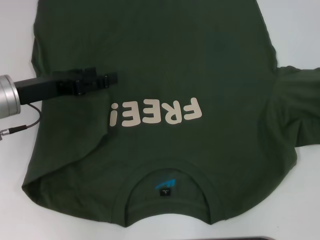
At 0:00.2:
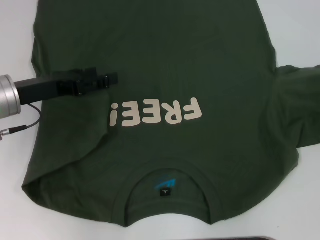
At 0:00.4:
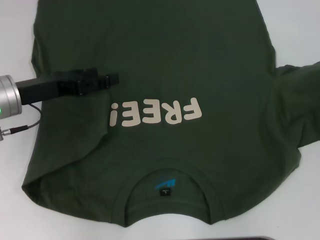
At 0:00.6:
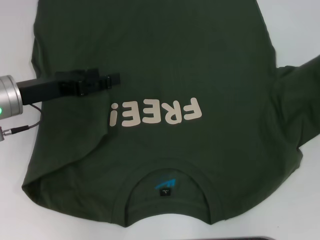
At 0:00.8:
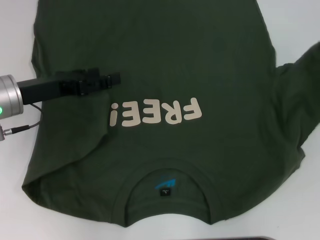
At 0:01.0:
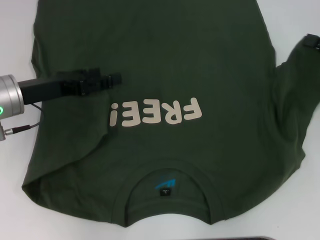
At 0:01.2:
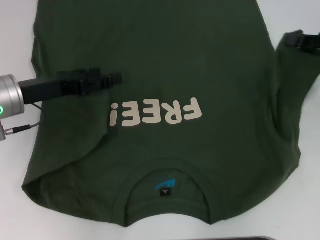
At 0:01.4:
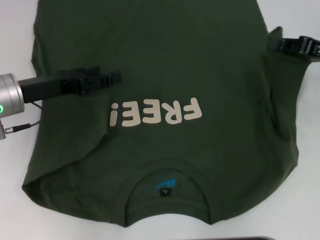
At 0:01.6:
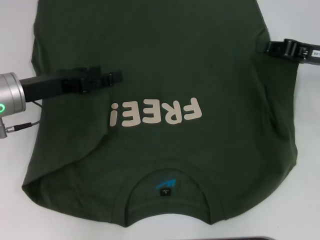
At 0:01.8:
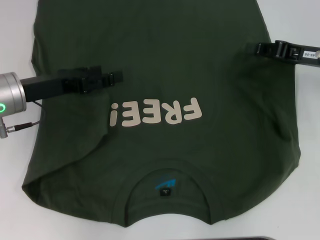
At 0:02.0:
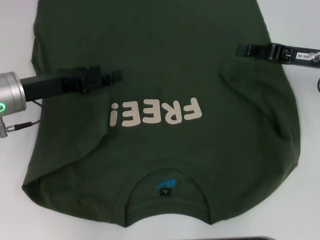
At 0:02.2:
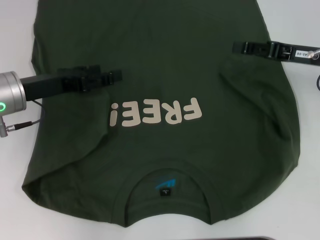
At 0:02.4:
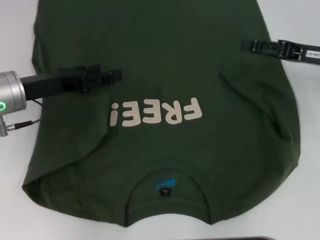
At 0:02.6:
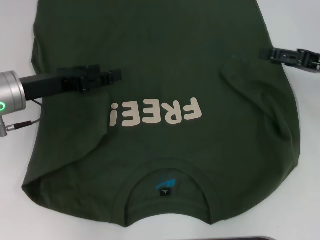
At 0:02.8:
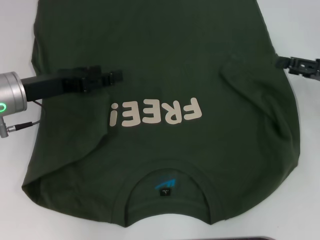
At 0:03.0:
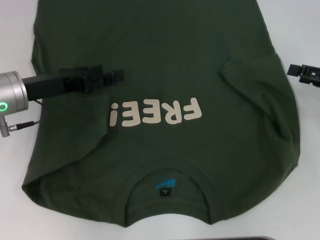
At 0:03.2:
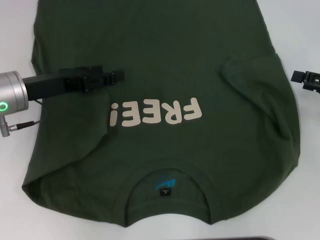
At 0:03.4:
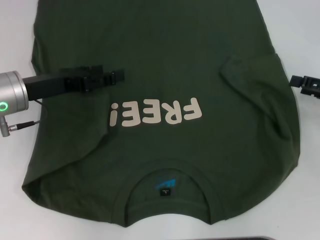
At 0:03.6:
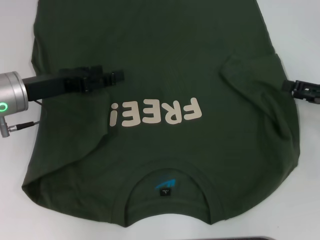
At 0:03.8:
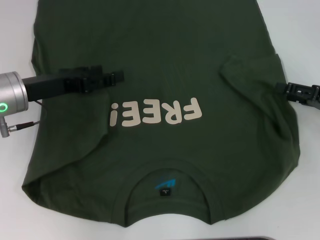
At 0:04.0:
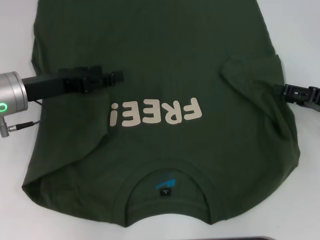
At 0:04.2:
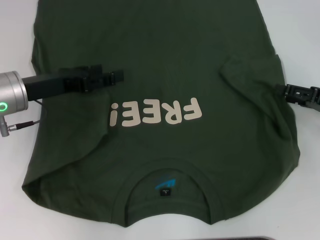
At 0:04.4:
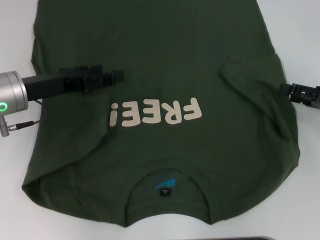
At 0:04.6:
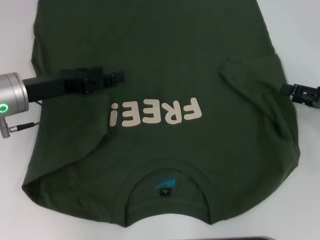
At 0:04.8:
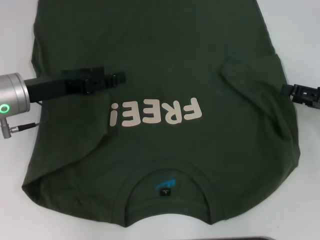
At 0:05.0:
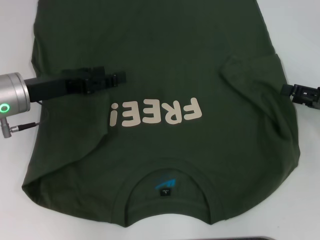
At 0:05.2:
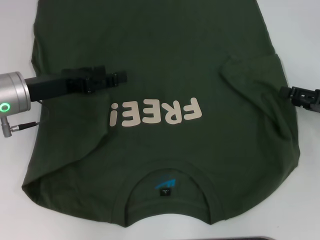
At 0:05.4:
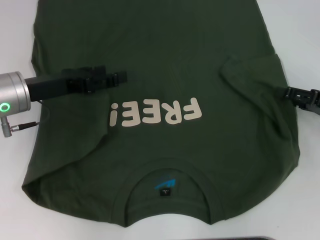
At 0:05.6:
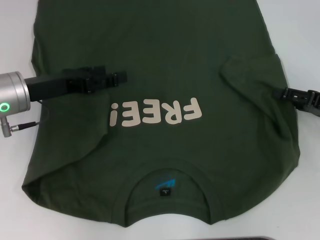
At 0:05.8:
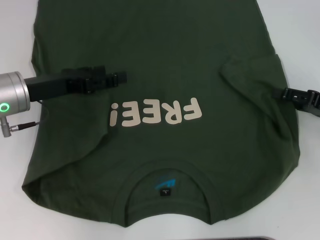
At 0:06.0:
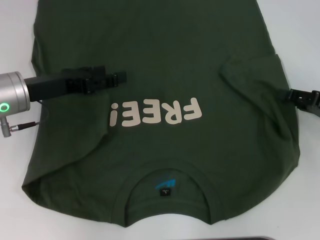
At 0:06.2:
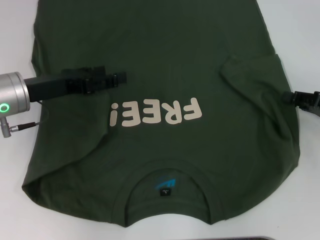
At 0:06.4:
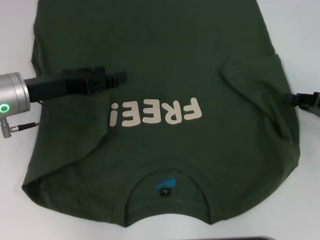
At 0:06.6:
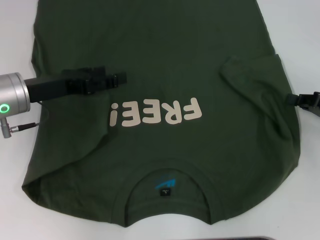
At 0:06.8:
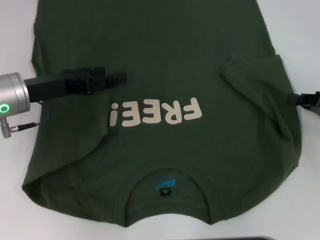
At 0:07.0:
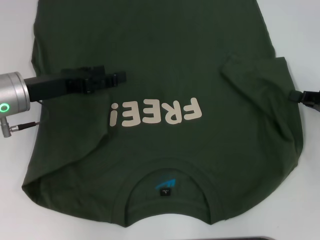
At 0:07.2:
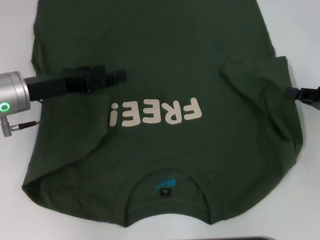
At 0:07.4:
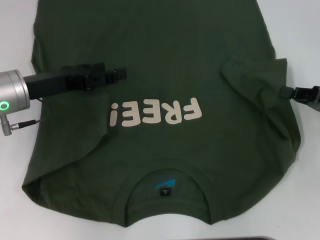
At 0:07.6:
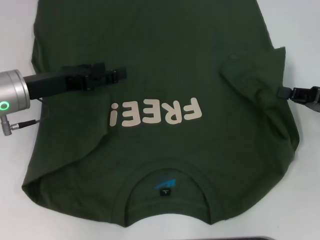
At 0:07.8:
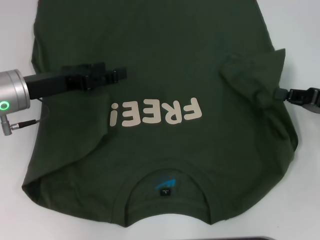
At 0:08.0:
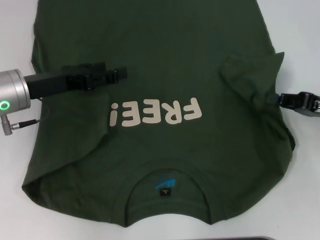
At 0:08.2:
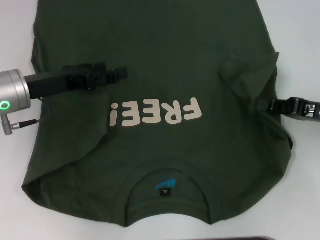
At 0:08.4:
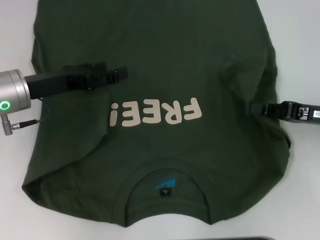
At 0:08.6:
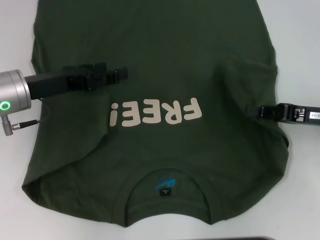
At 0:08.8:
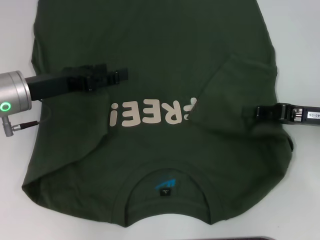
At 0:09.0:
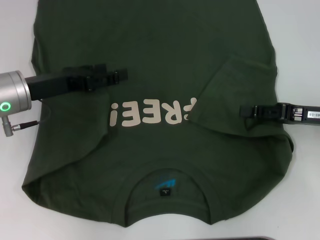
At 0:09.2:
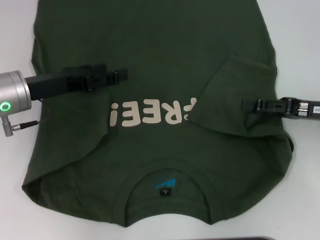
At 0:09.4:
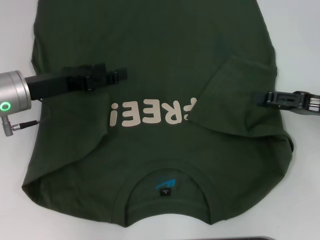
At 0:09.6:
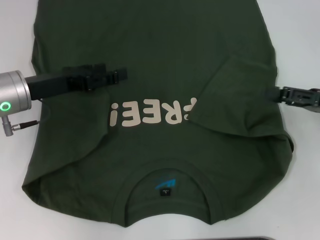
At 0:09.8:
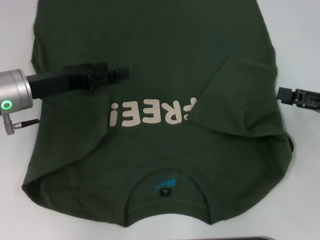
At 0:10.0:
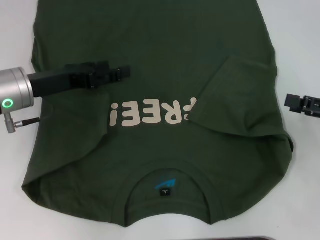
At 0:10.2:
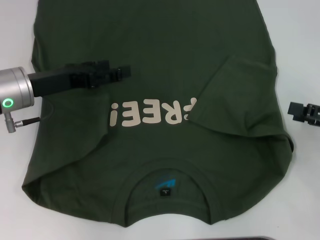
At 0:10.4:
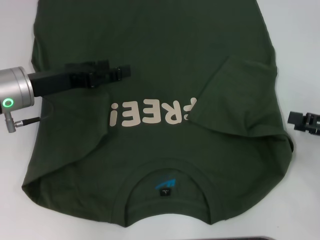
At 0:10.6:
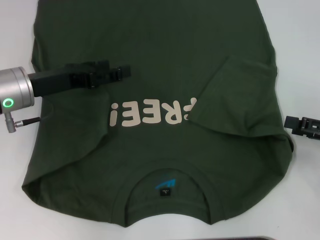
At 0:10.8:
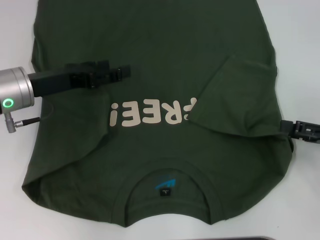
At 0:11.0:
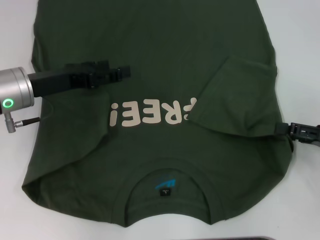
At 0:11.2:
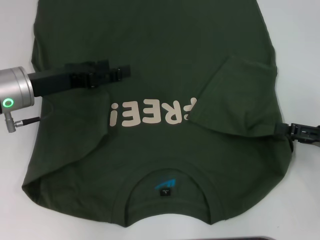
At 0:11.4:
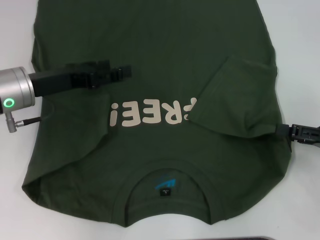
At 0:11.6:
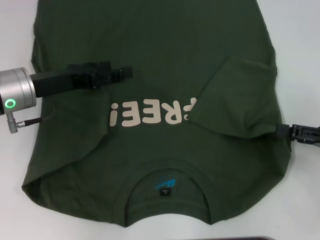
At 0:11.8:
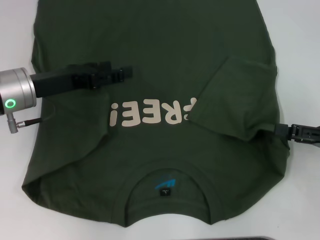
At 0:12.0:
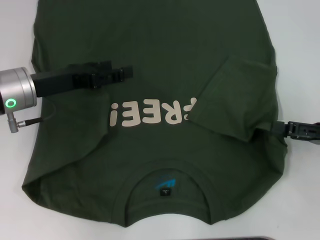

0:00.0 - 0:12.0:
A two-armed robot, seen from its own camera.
Step, 0:00.0 - 0:09.0: Fold the bottom right sleeve with your right hand.
0:00.0 - 0:01.6: The right gripper travels to the left and forward by some 15 cm.
0:01.6 - 0:03.0: The right gripper shifts approximately 5 cm to the right, and opens up.
0:03.0 - 0:04.4: There are only small adjustments of the grippers.
0:04.4 - 0:06.0: Both grippers stay about where they are.
0:06.0 - 0:07.6: The right gripper closes its fingers.
0:07.6 - 0:09.0: The grippers make only small movements.
0:09.0 - 0:10.4: The right gripper travels to the right and backward by roughly 10 cm, and opens its fingers.
0:10.4 - 0:12.0: The grippers move only a little.

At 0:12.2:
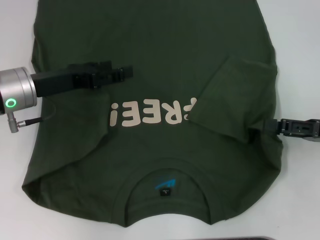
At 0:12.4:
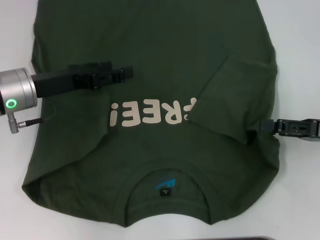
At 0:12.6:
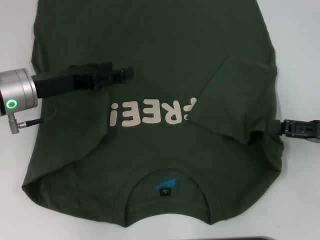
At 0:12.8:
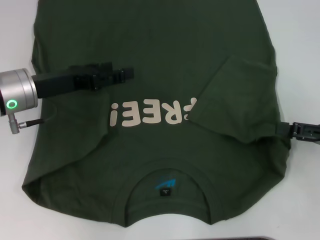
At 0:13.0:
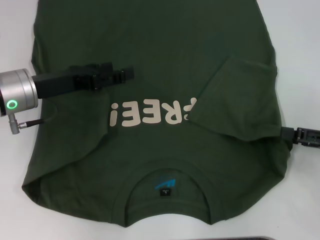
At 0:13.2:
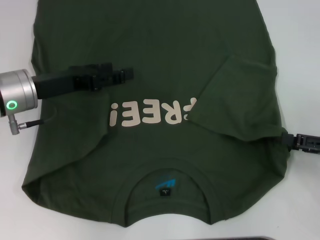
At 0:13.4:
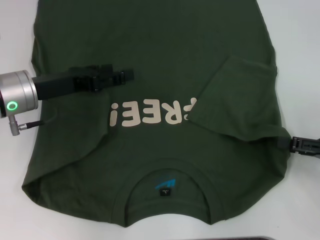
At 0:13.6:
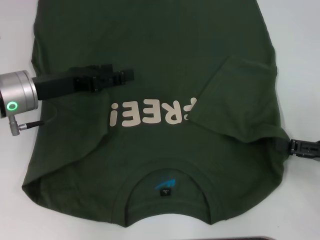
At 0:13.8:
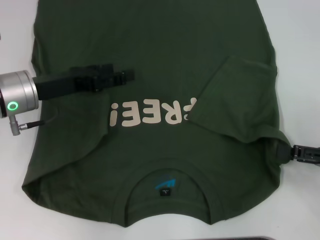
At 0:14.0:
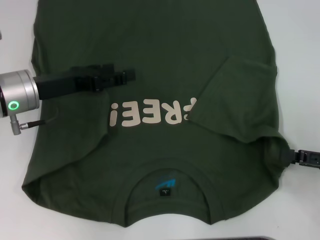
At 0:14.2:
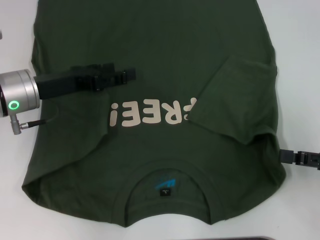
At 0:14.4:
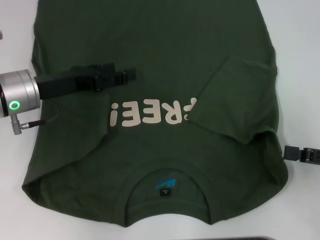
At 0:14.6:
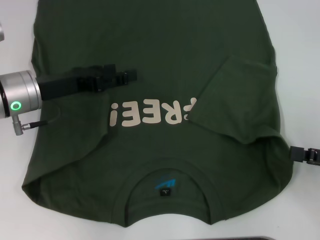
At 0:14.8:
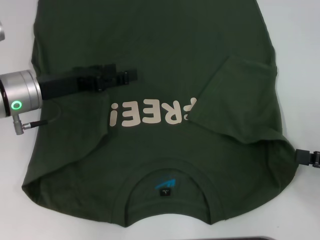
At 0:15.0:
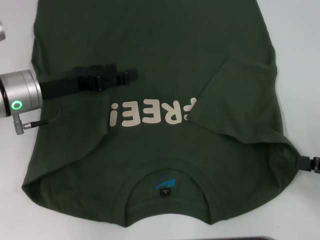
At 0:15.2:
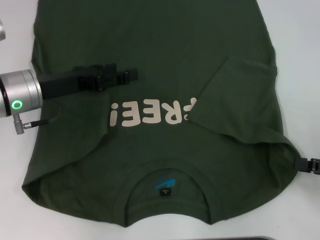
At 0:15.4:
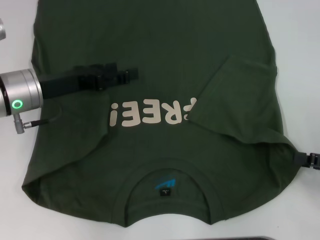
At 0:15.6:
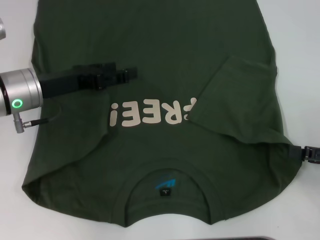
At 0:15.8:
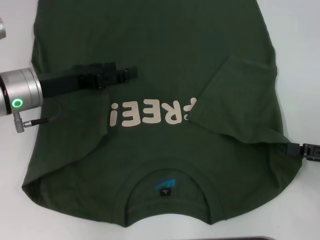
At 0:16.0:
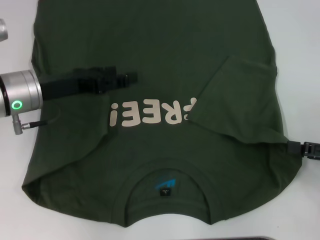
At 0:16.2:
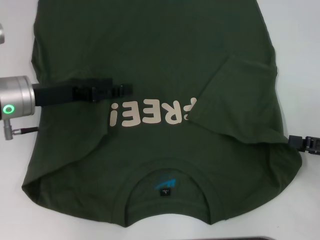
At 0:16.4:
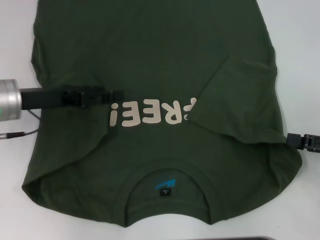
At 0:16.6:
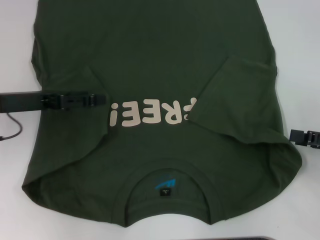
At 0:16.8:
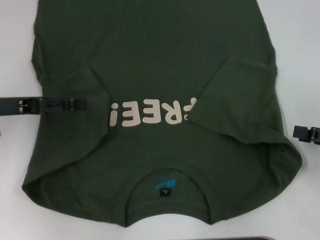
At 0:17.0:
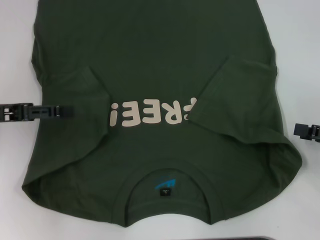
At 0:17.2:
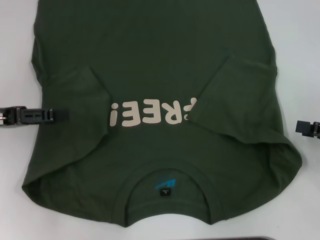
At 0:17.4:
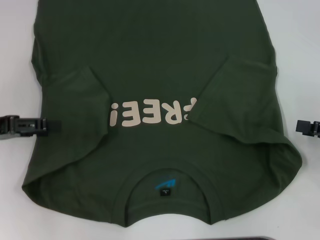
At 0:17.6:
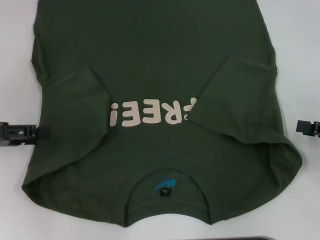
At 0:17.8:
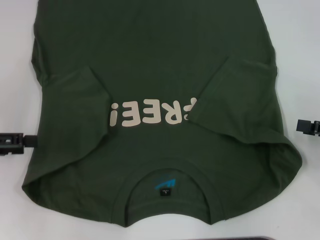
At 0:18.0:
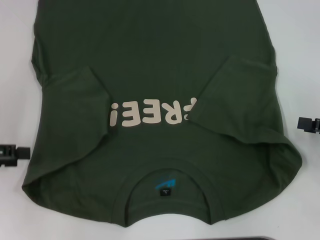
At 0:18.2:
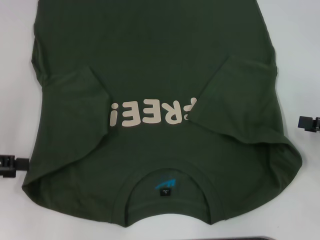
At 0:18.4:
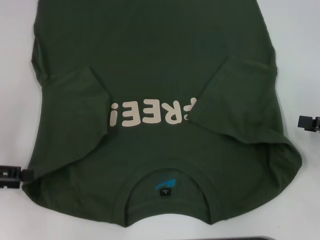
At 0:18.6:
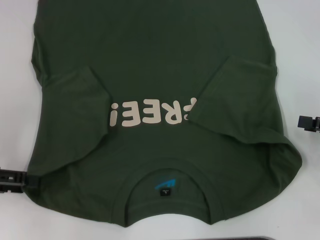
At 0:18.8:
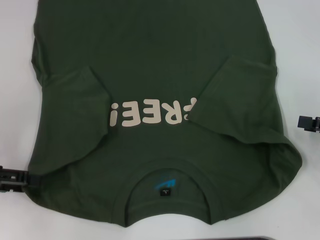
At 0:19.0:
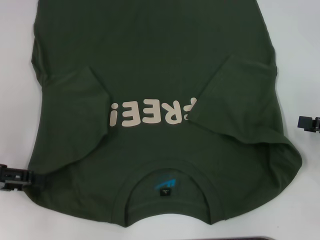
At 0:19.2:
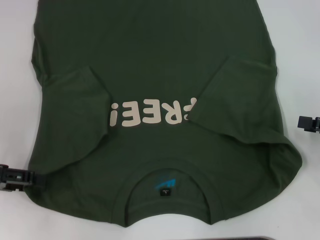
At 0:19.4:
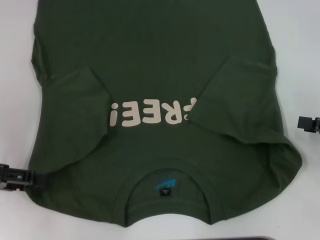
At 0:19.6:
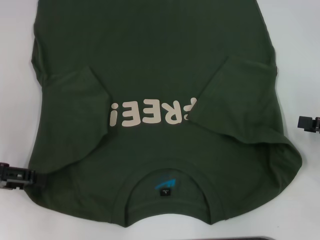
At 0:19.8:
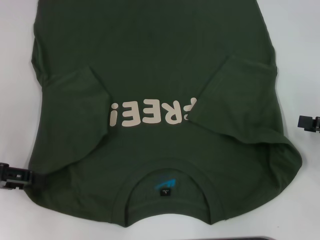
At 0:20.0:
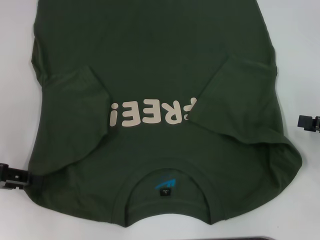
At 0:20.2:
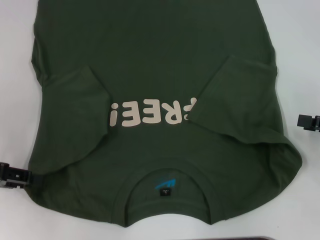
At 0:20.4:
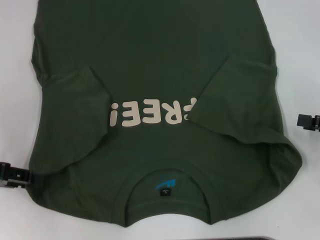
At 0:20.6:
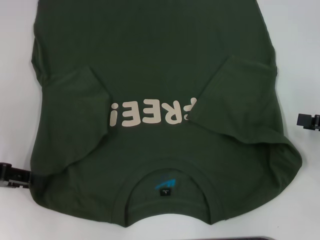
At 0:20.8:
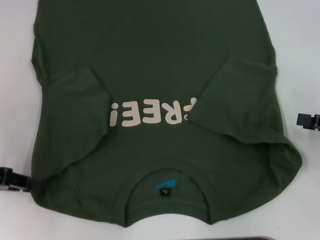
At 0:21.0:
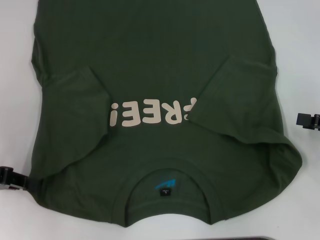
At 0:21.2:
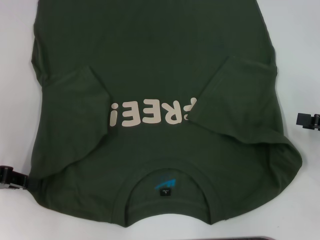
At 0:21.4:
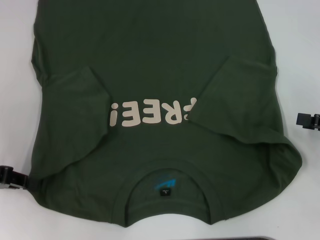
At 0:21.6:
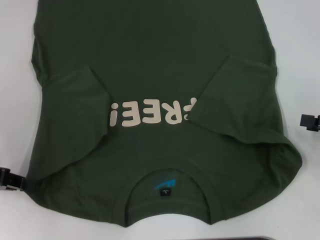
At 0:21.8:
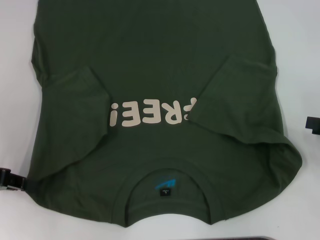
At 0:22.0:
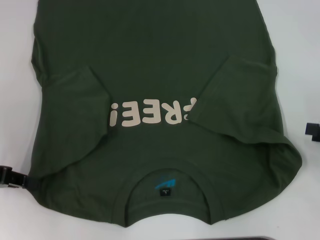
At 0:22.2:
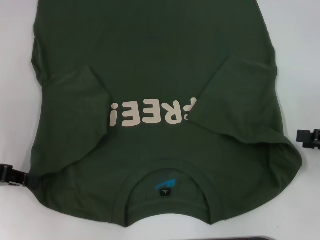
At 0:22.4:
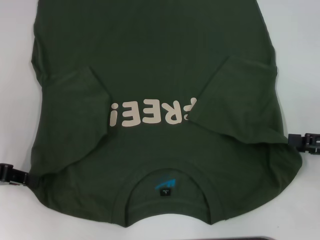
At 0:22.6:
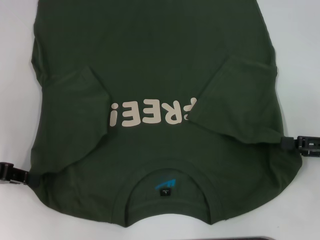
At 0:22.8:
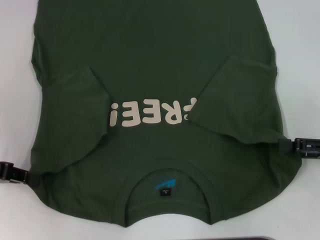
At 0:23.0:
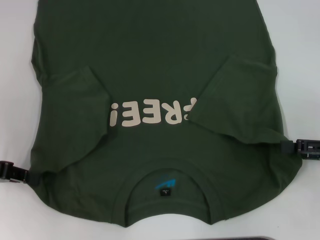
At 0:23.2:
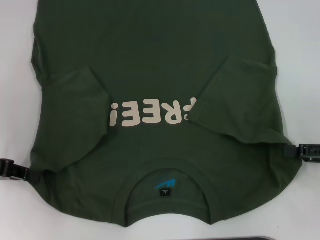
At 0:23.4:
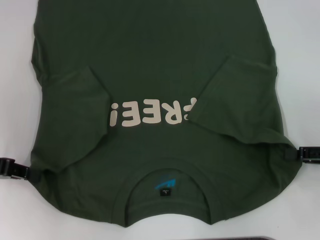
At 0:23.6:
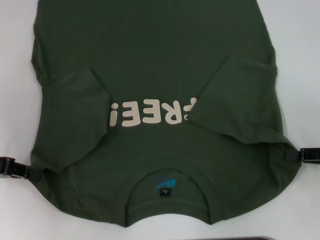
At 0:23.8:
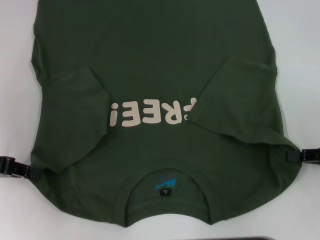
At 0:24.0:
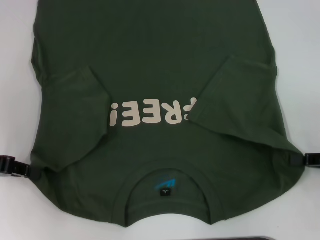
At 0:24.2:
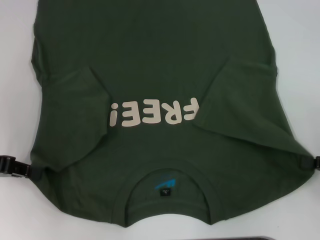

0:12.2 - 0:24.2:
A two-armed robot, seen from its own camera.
Step, 0:12.2 - 0:22.6: Grab the bottom left corner with your left hand.
0:12.2 - 0:13.8: The grippers stay close to where they were, moving slightly.
0:13.8 - 0:15.2: The grippers stay close to where they were, moving slightly.
0:15.2 - 0:16.6: The left gripper shifts some 5 cm to the left.
0:16.6 - 0:18.2: The left gripper is displaced to the left and backward by some 10 cm.
0:18.2 - 0:19.8: The grippers make only small movements.
0:19.8 - 0:21.2: The left gripper closes.
0:21.2 - 0:22.6: The grippers make only small movements.
0:22.6 - 0:24.2: The right gripper closes up.
